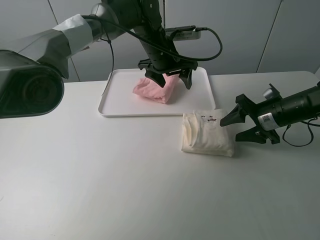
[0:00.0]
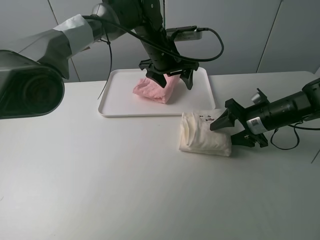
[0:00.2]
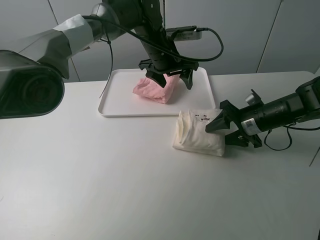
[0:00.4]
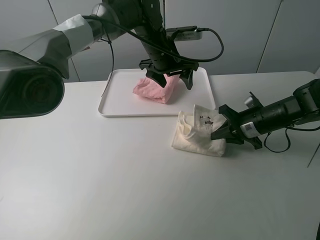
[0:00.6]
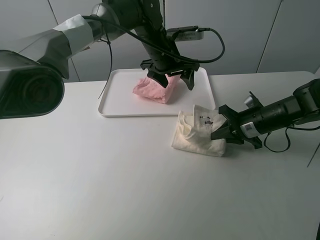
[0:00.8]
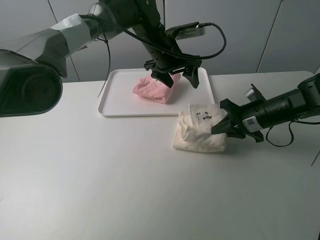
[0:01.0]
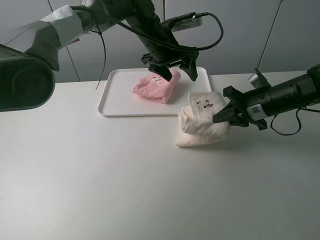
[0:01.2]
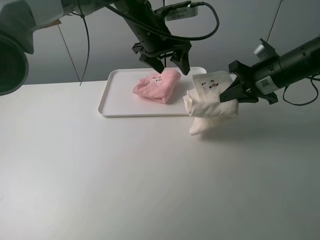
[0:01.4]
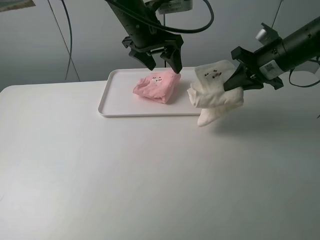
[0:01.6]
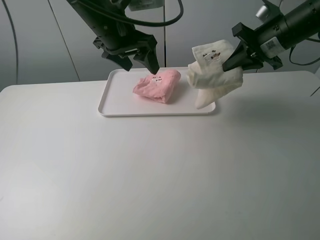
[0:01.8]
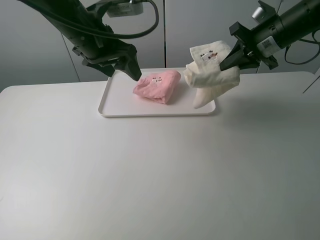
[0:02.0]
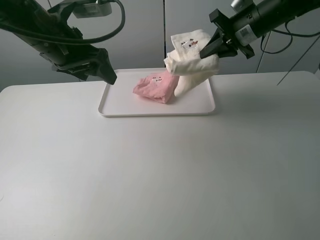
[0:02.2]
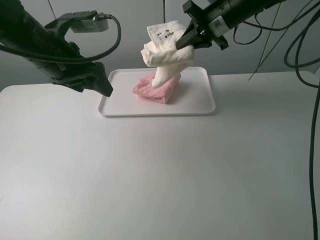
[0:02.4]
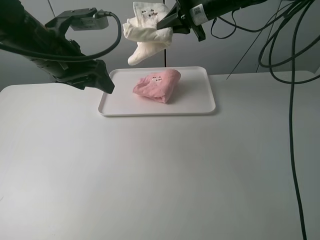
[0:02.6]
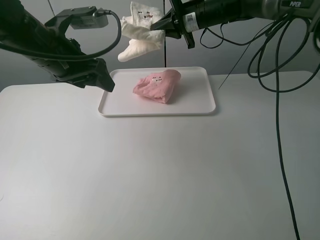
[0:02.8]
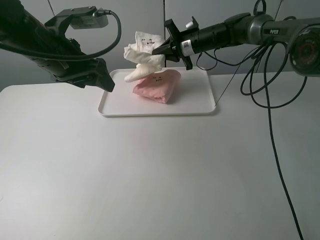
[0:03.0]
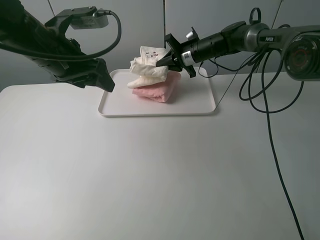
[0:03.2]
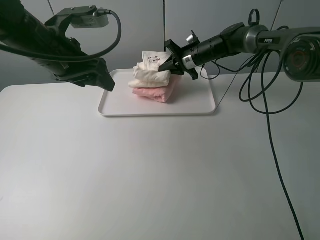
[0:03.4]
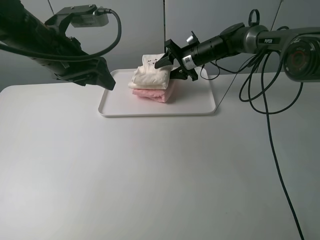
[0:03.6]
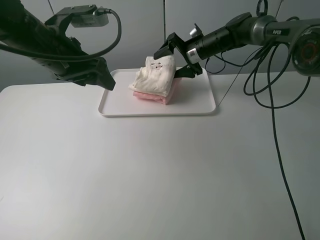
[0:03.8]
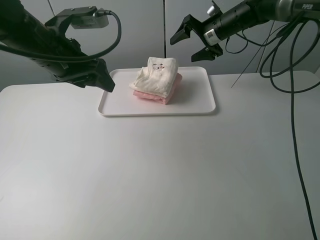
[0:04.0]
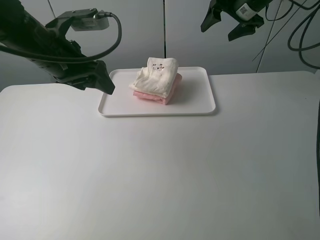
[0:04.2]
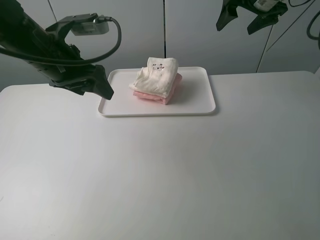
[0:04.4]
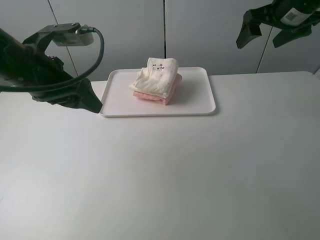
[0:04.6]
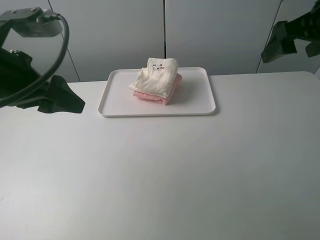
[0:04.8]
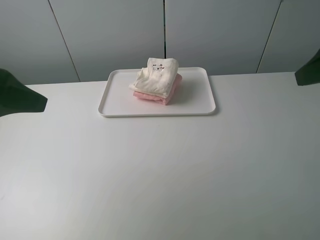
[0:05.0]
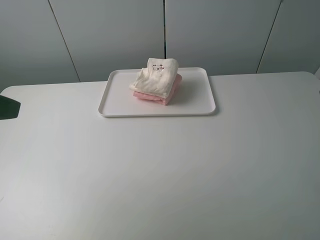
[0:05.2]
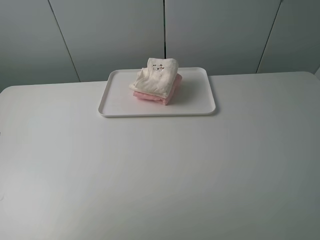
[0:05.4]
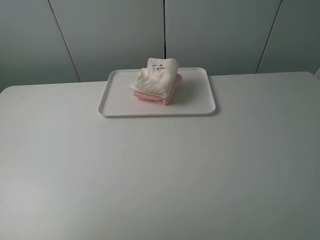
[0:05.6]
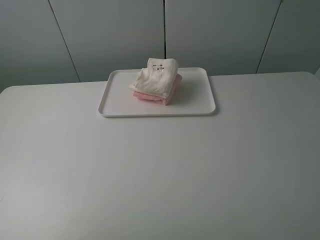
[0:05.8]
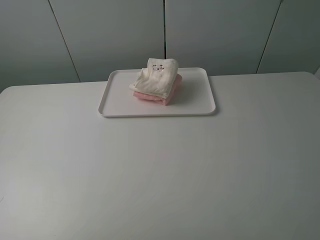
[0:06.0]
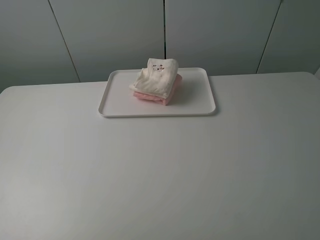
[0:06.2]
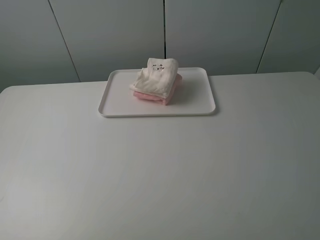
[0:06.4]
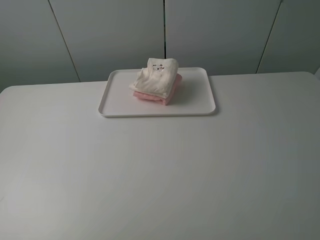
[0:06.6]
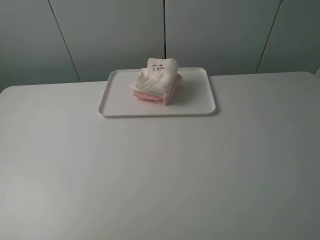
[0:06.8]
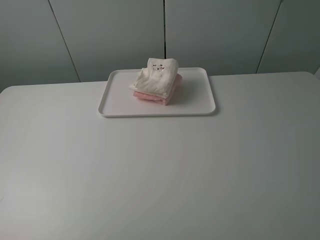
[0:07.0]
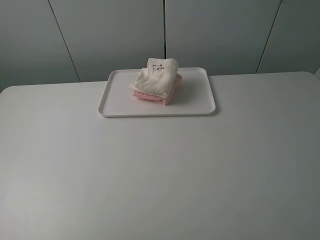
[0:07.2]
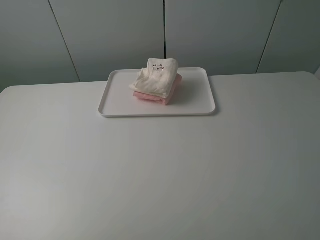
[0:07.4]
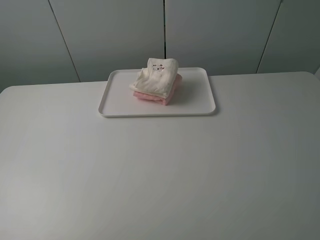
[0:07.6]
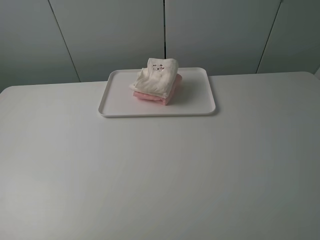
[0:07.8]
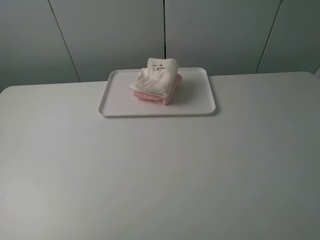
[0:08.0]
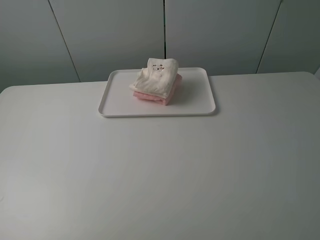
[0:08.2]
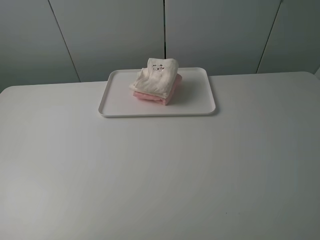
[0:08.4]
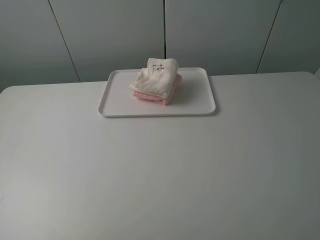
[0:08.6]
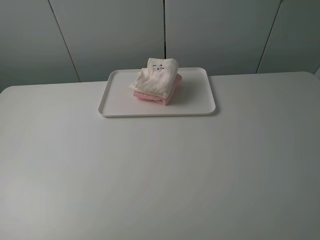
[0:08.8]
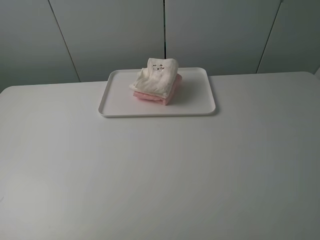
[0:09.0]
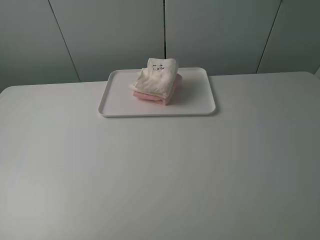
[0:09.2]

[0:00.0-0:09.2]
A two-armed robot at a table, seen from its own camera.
Task of the whole recording: fold one of the towels by two grippers and place it on the tray,then fold another towel by two grippers and place it on the folded towel.
Step, 0:00.8 to 0:03.8: Place the white towel on the pink towel with the right gripper.
0:00.0 to 0:01.6: The right gripper heads upward, covering about 10 cm, and closes up, while the left gripper is displaced upward by about 10 cm.
0:01.6 to 0:03.0: The left gripper is displaced to the left and backward by roughly 15 cm, while the right gripper is displaced forward, to the left and downward by about 20 cm.
0:03.0 to 0:04.6: The left gripper moves backward, about 5 cm. The right gripper travels backward, upward and to the right by about 25 cm, and opens.
0:04.6 to 0:06.2: The right gripper is displaced backward by approximately 35 cm, while the left gripper heads backward and to the left, covering approximately 25 cm.
